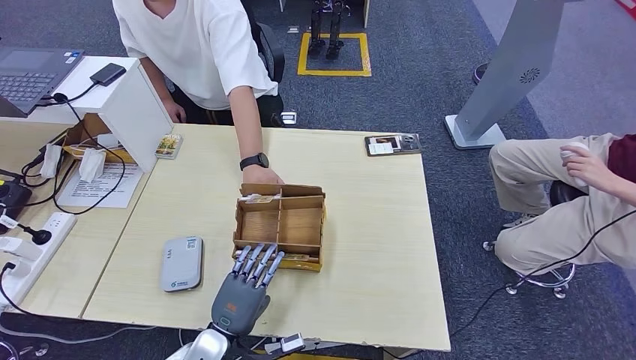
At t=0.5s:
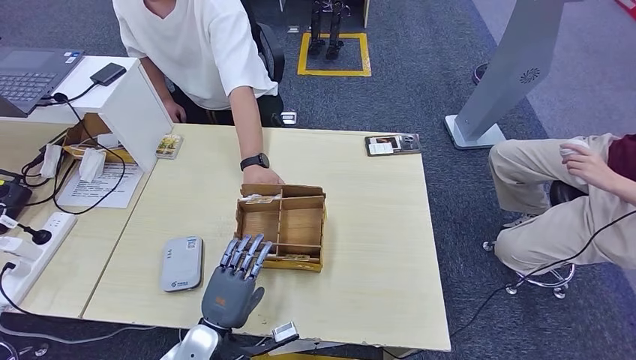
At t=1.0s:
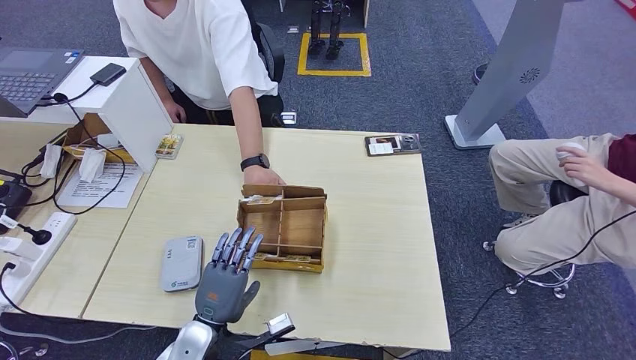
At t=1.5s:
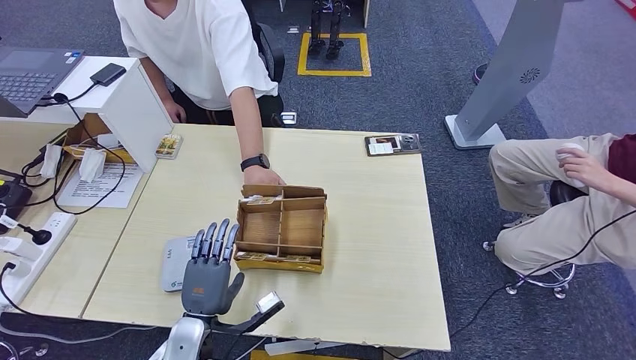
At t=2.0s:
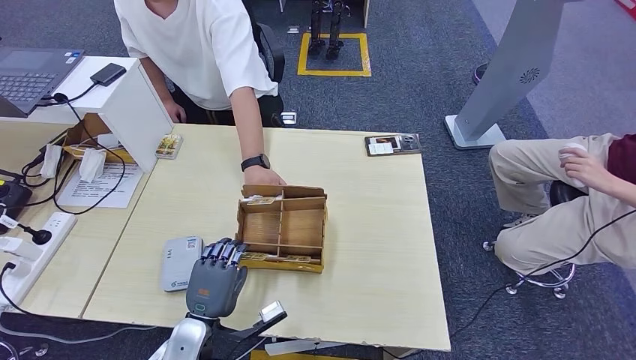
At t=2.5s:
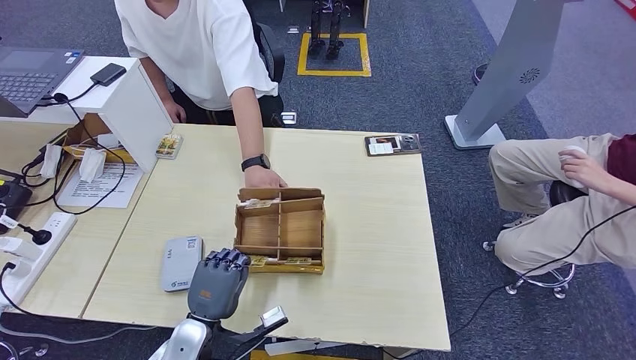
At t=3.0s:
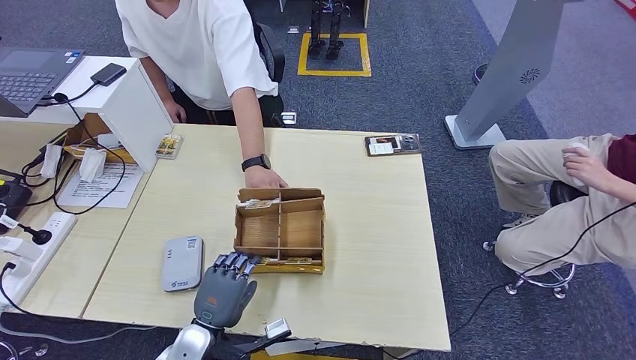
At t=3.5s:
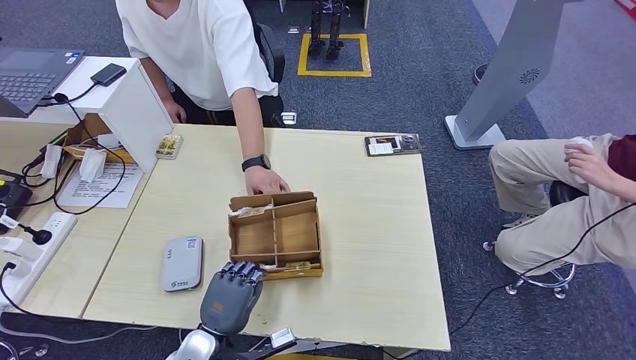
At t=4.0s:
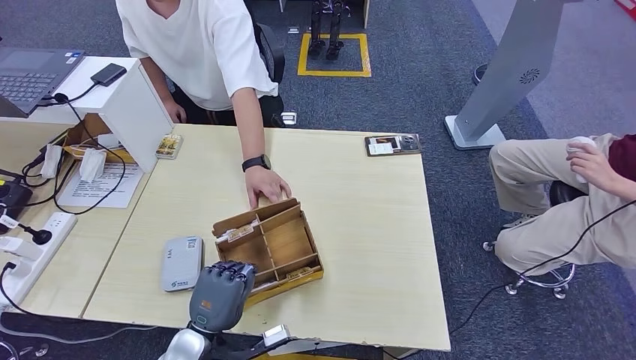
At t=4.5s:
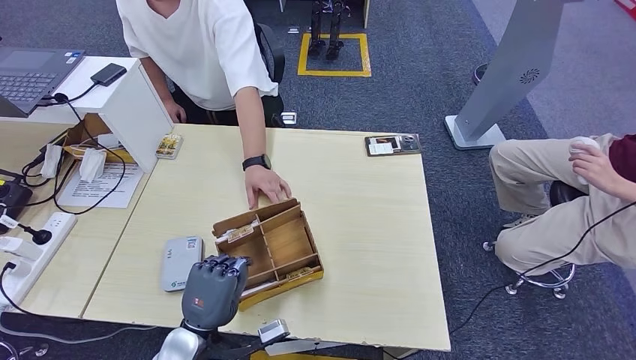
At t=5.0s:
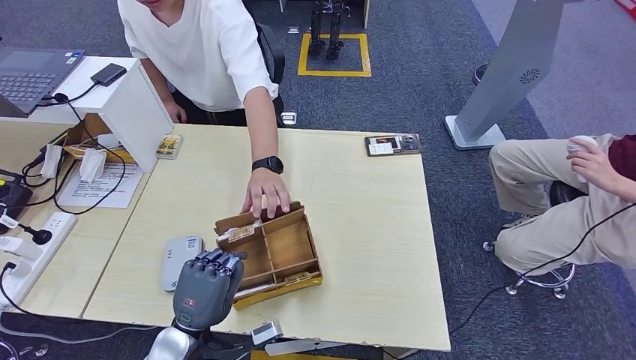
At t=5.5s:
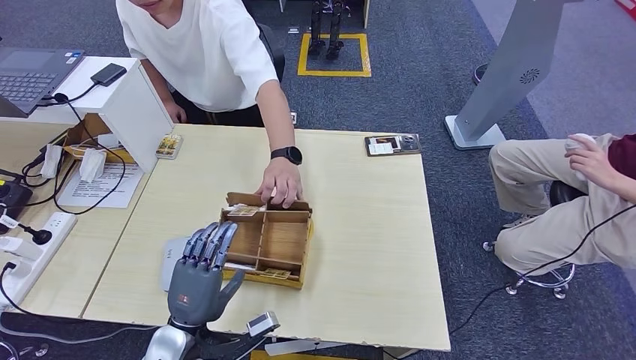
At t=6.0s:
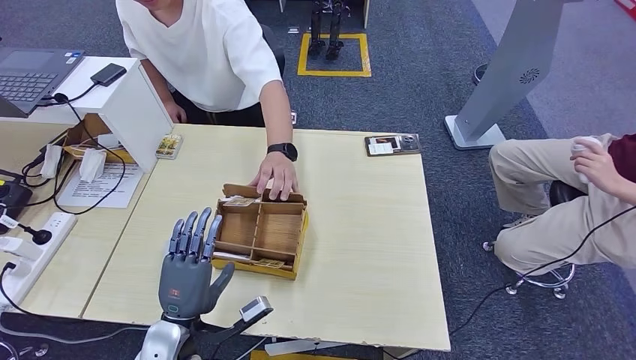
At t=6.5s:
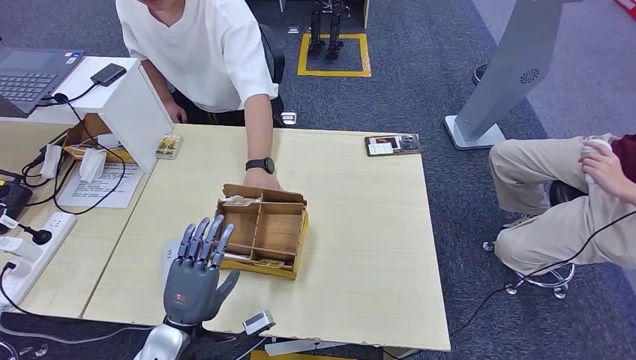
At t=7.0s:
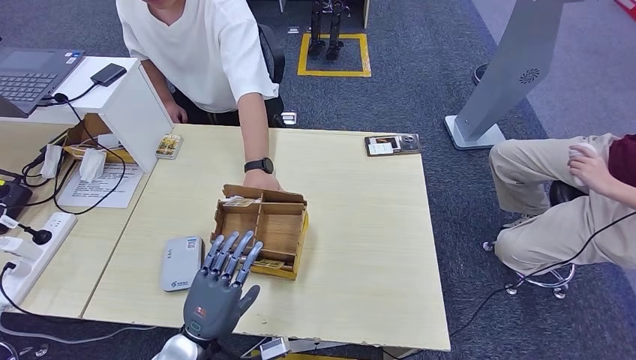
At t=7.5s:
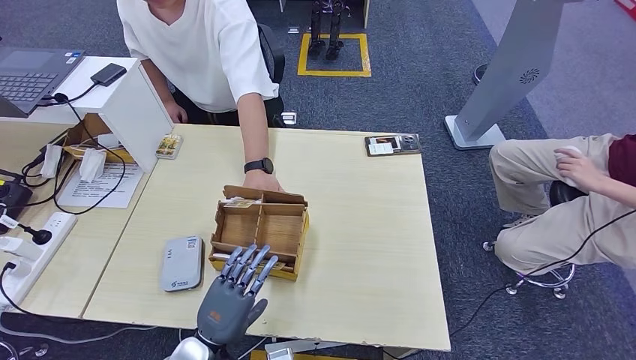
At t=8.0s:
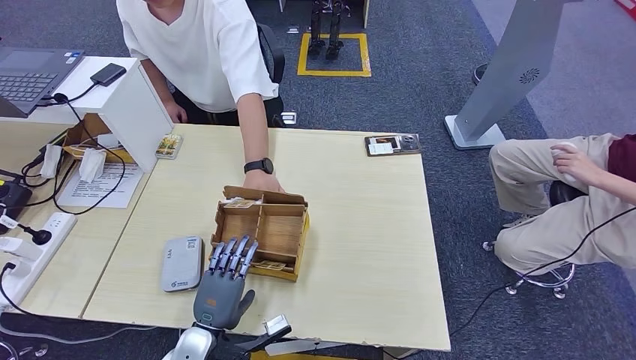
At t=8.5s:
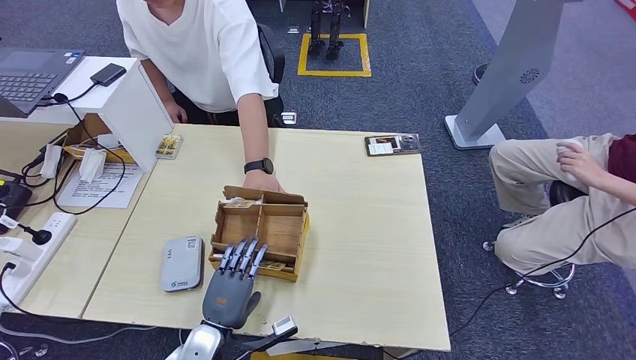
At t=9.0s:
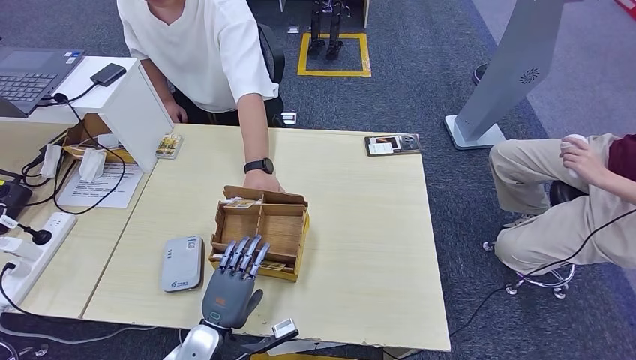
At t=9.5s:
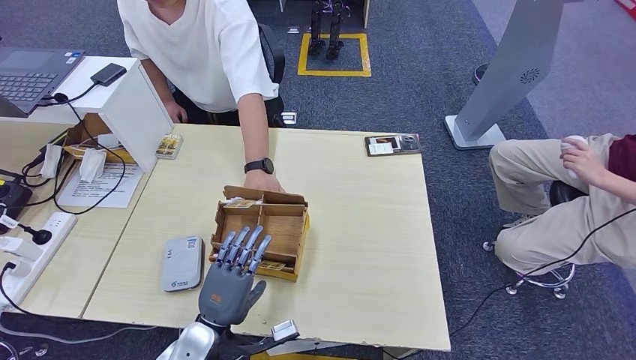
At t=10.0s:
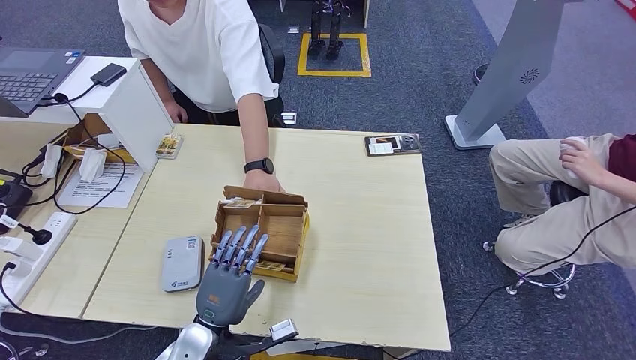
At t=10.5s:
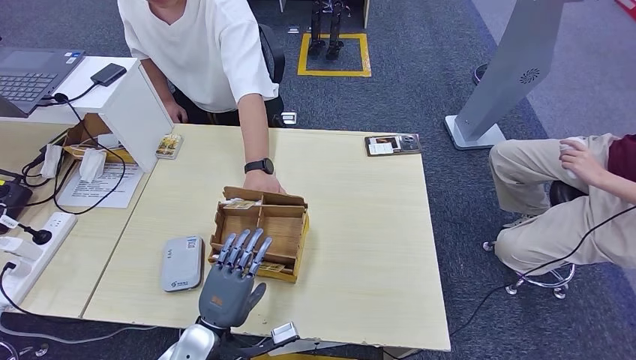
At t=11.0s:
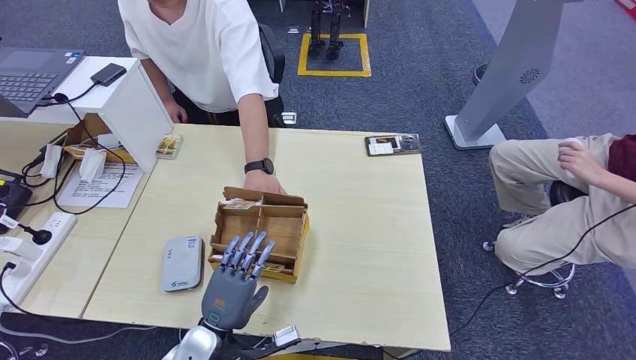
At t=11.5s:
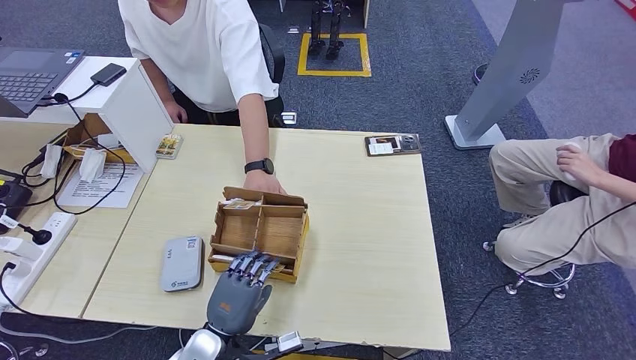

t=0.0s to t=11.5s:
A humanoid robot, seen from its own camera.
t=0.0s to t=4.0s: There are only small adjustments of the hands.
t=4.0s to t=6.0s: The hands make only small movements.
t=6.0s to t=7.5s: The left hand shifts by approximately 5 cm.
t=7.5s to t=11.5s: The hands make only small movements.

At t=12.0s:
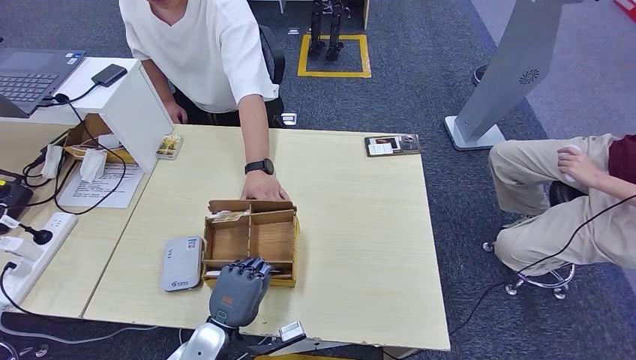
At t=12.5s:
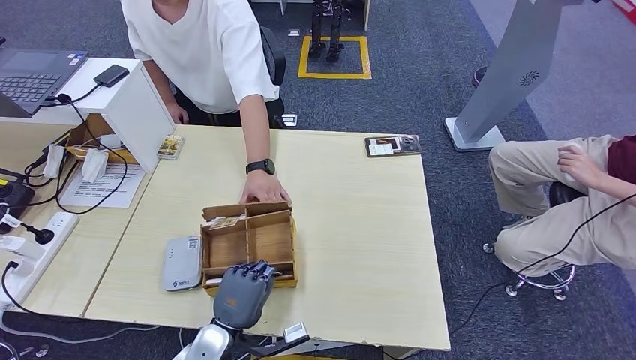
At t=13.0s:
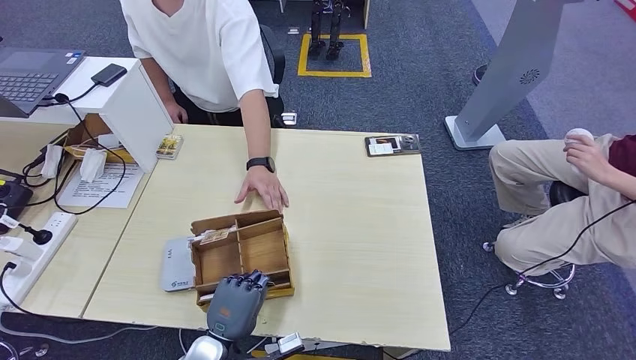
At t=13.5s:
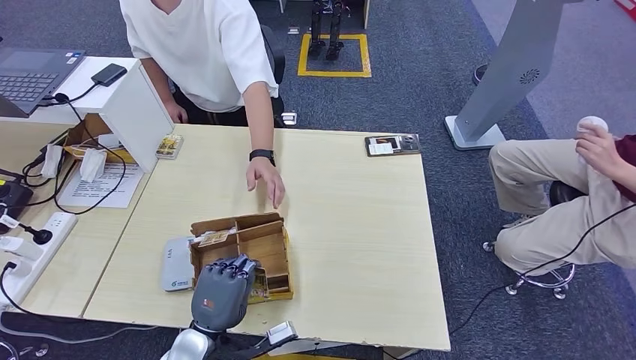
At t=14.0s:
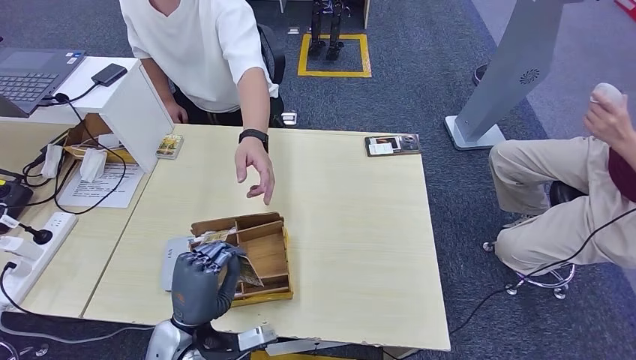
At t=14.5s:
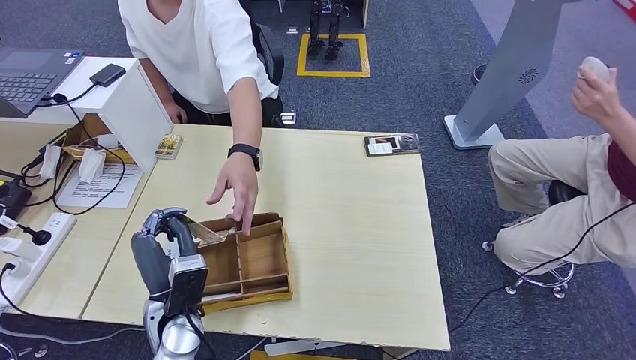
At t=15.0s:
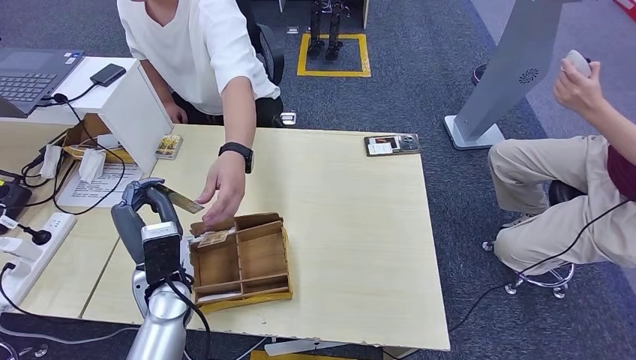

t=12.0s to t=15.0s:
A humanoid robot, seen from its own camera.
Step, t=14.0s to t=15.0s: Hand the room key to the person.
t=12.0s to t=13.5s: The hands stay close to where they were, moving slightly.
t=13.5s to t=15.0s: The left hand travels forward and upward by roughly 15 cm.
